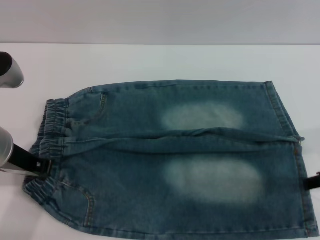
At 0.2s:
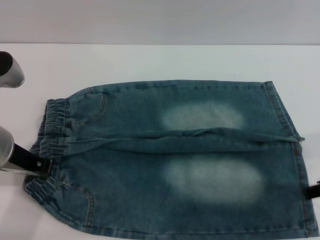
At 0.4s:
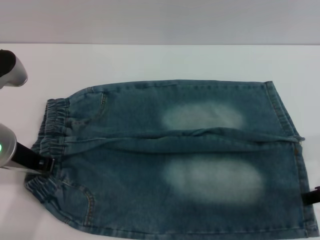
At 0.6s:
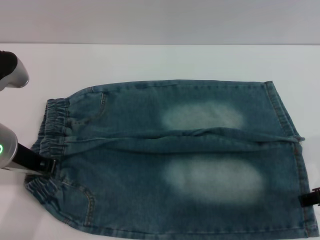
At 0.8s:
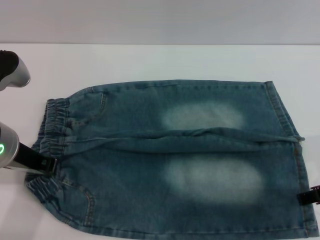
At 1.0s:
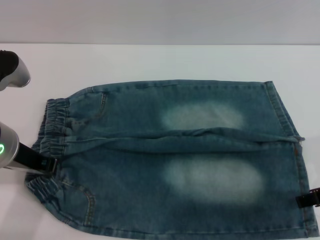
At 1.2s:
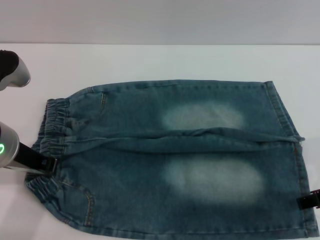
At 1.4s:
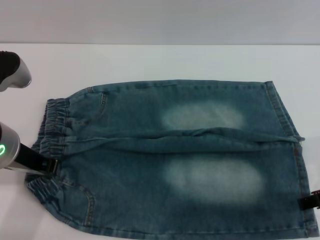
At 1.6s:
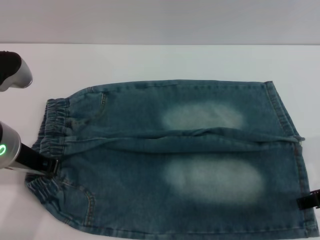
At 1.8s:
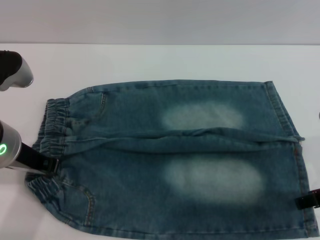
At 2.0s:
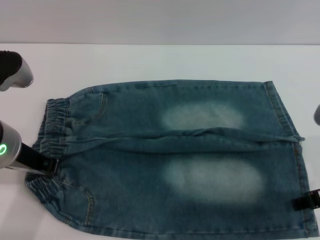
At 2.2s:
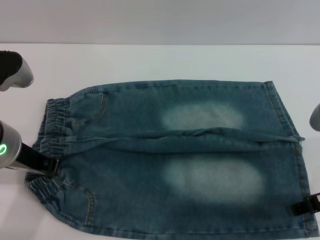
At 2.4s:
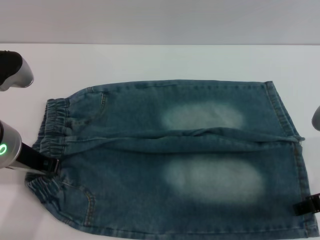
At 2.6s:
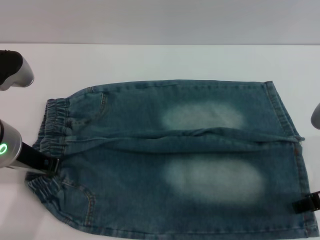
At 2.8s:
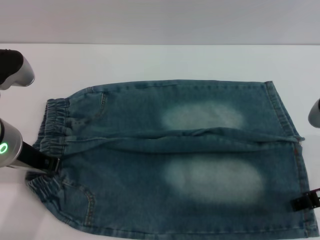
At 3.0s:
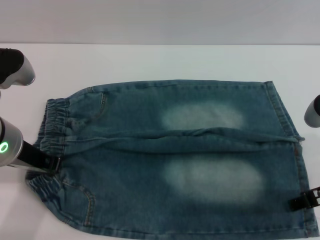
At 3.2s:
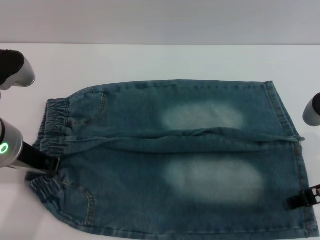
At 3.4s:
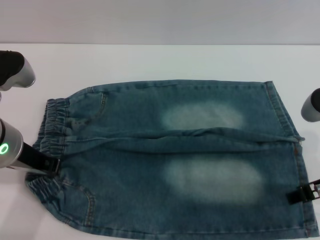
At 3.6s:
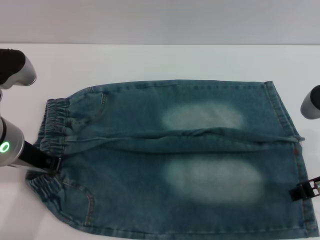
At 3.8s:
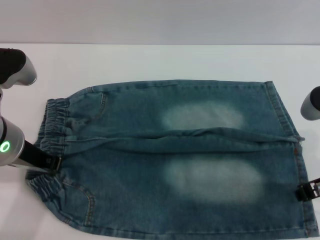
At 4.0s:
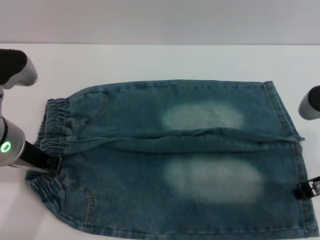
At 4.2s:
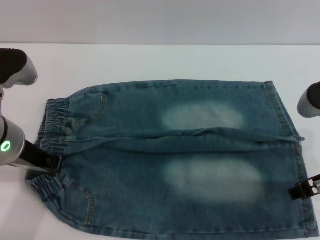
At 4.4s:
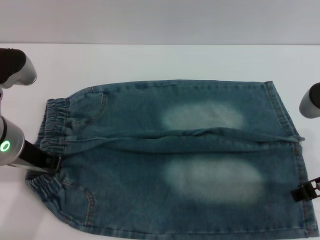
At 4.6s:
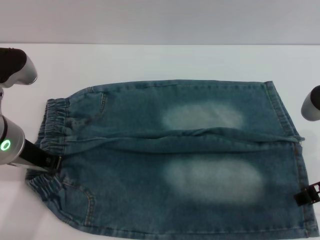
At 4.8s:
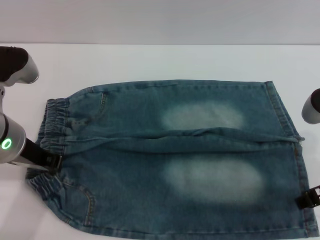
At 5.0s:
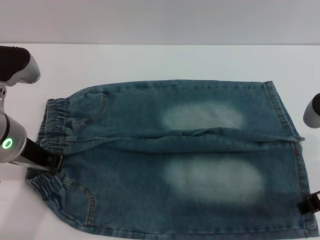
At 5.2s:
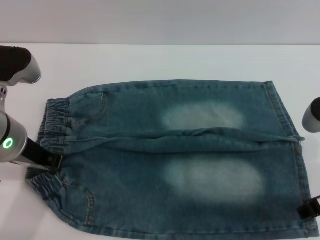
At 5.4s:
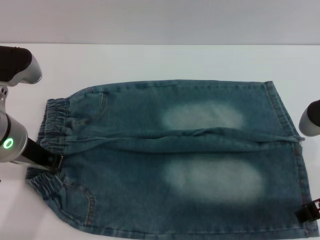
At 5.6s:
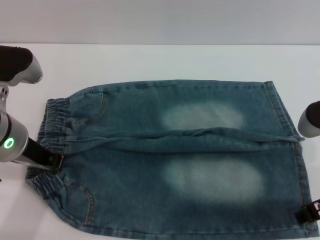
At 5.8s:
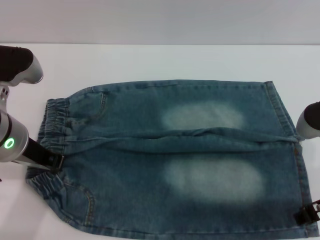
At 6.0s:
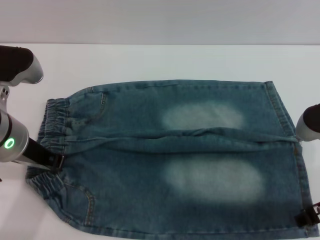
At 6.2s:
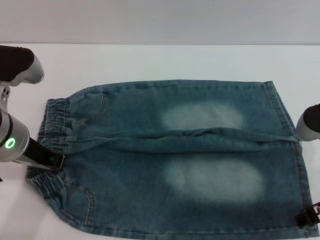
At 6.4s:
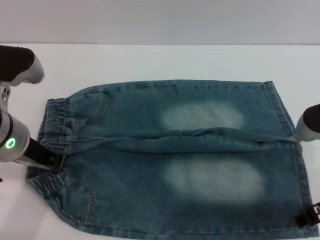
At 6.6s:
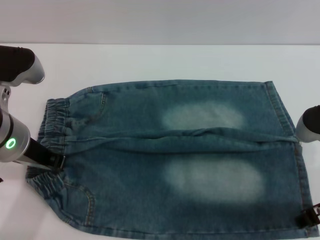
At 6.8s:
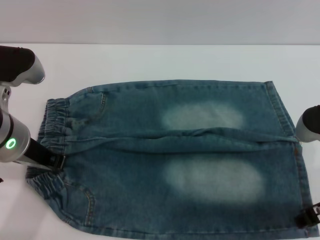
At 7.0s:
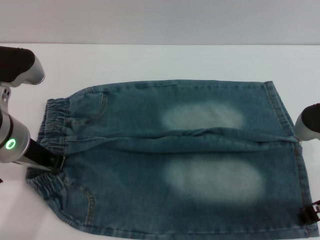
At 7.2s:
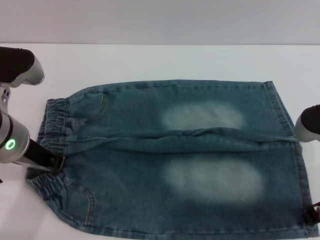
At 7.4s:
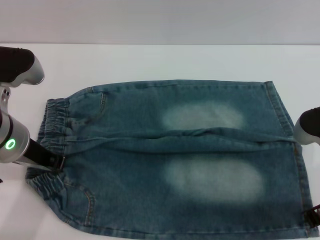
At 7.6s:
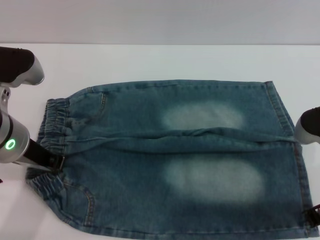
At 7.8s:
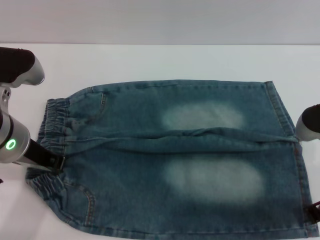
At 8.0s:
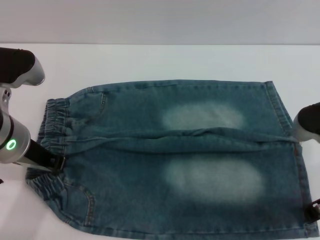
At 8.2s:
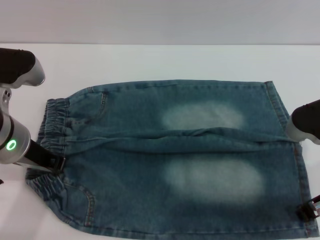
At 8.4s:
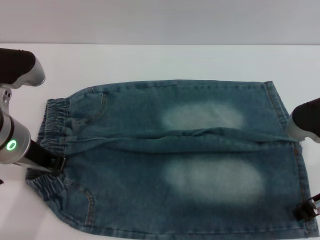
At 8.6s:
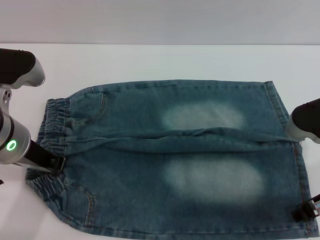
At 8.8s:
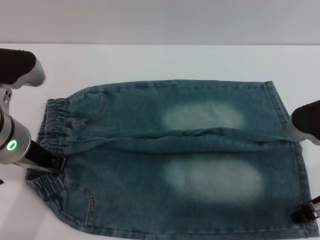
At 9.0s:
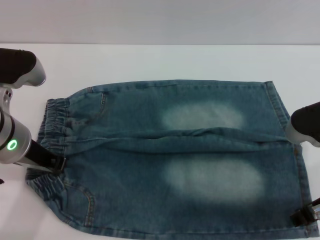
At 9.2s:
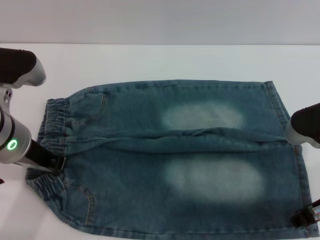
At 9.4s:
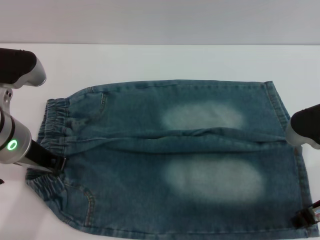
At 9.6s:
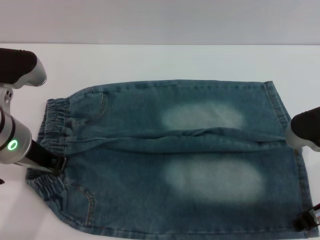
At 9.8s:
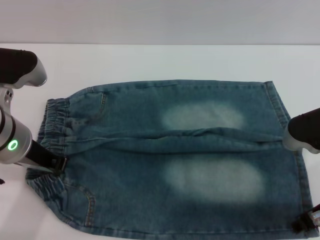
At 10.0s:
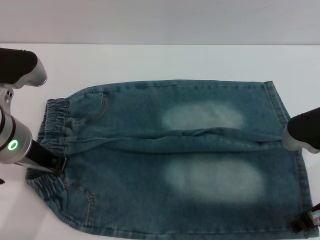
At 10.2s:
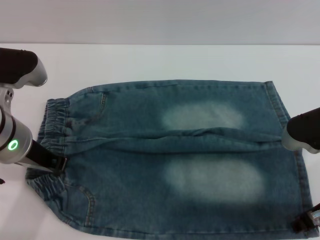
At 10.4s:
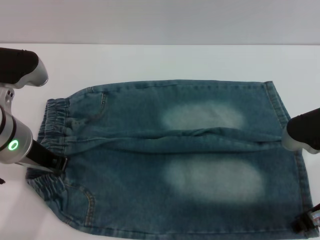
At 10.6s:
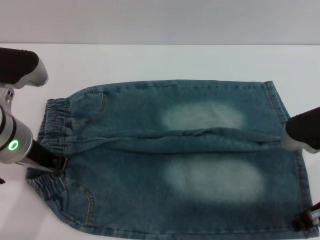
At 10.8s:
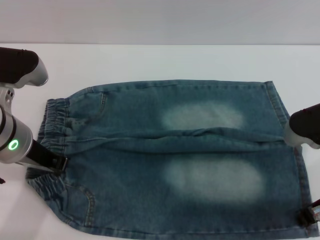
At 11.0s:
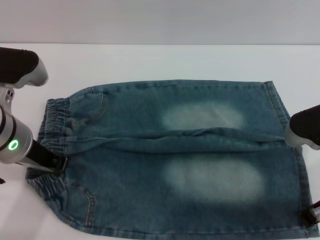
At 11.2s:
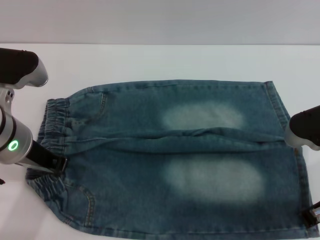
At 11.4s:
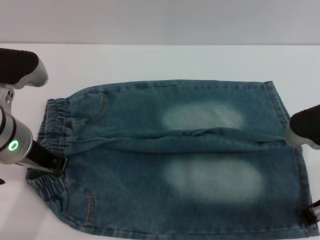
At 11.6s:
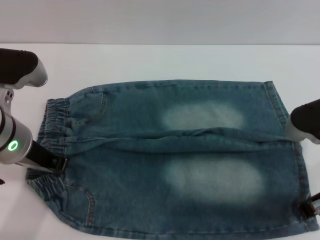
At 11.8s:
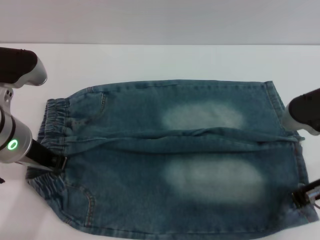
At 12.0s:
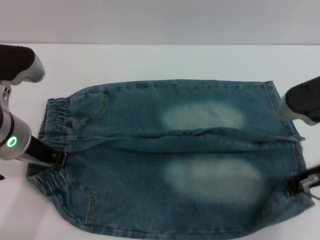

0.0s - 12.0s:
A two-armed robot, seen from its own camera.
0.0s - 6.0s: The grippers make only small movements.
7.6s - 9.0s: The right gripper opens its fingers.
9.0s - 10.4s: The two grippers keep their place.
10.4s - 12.0s: The right gripper closes.

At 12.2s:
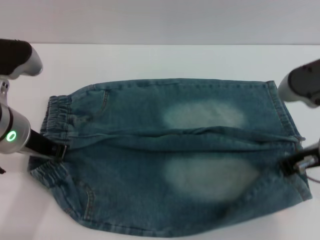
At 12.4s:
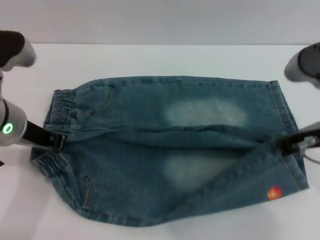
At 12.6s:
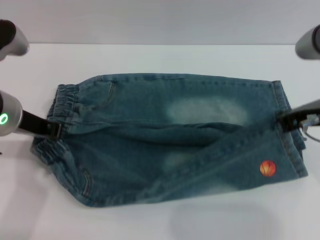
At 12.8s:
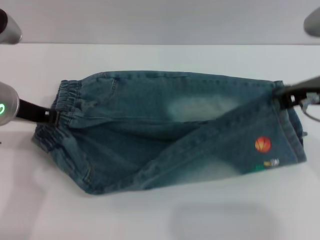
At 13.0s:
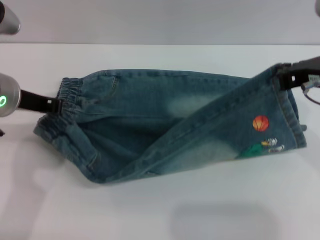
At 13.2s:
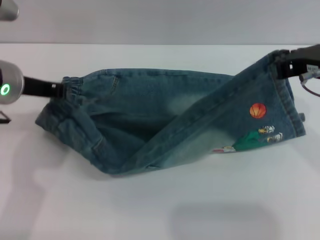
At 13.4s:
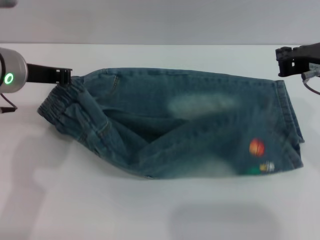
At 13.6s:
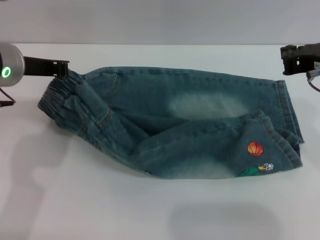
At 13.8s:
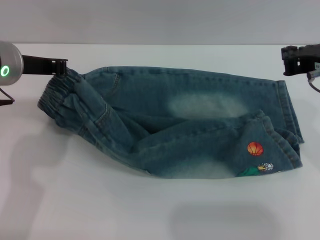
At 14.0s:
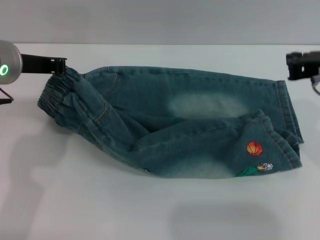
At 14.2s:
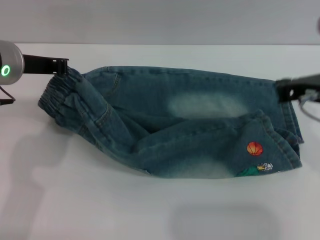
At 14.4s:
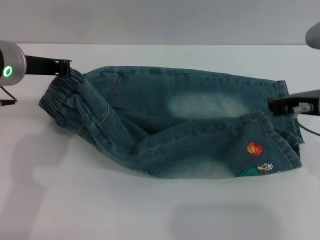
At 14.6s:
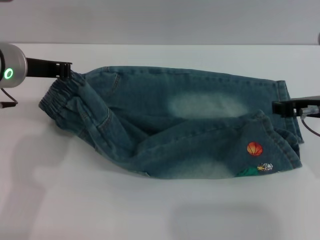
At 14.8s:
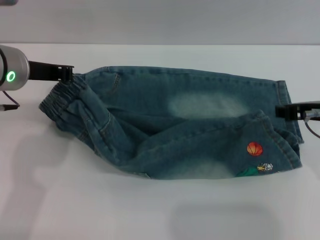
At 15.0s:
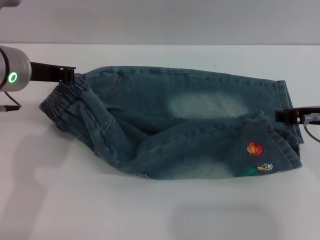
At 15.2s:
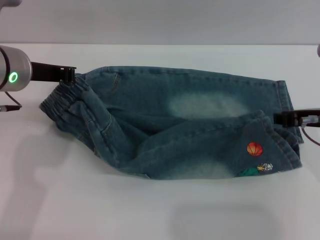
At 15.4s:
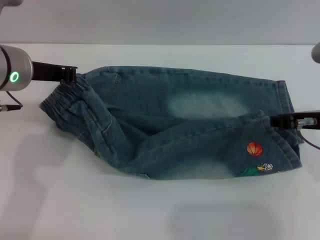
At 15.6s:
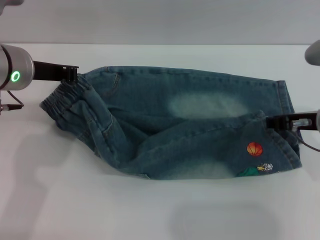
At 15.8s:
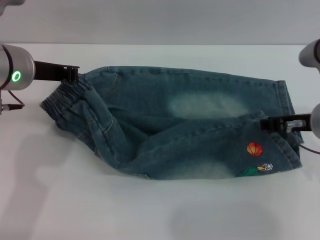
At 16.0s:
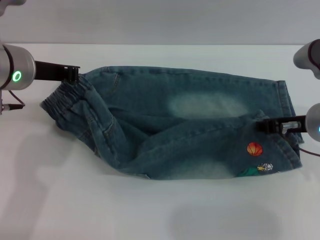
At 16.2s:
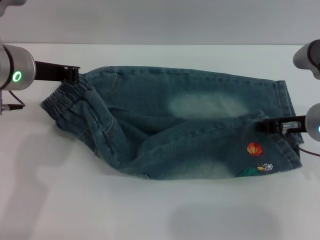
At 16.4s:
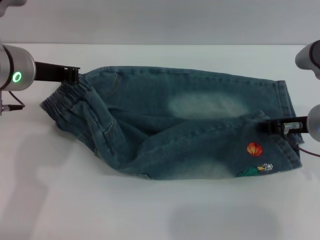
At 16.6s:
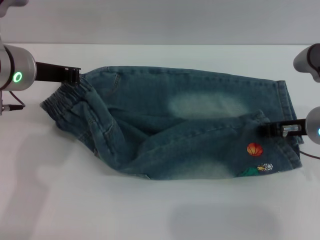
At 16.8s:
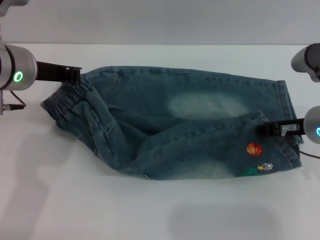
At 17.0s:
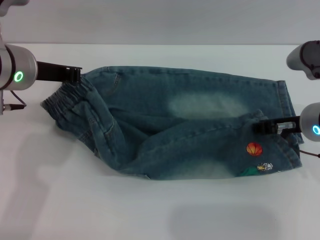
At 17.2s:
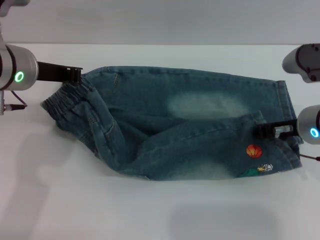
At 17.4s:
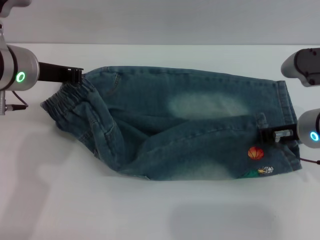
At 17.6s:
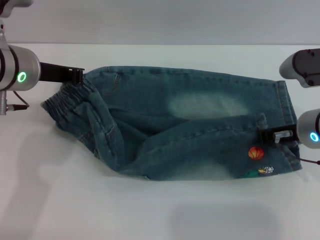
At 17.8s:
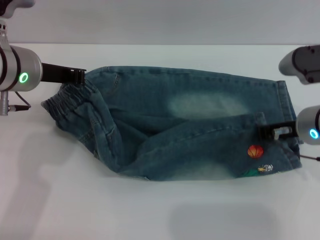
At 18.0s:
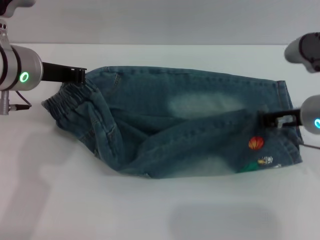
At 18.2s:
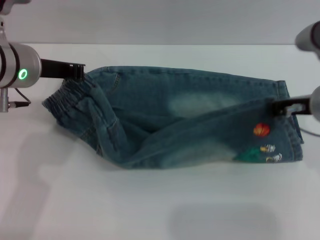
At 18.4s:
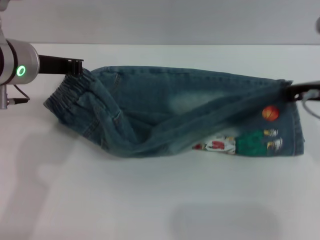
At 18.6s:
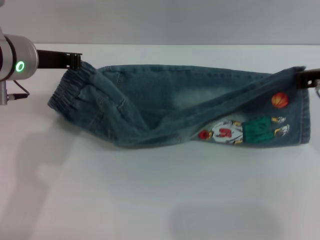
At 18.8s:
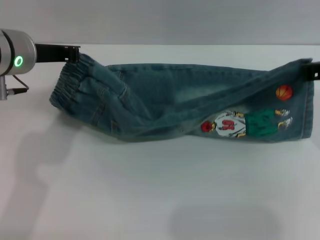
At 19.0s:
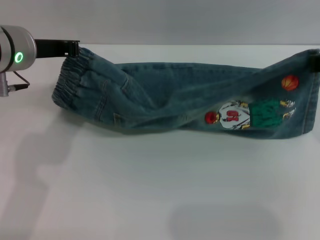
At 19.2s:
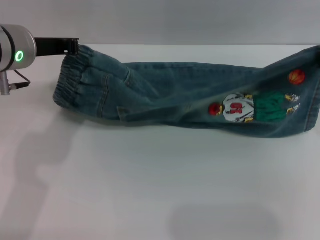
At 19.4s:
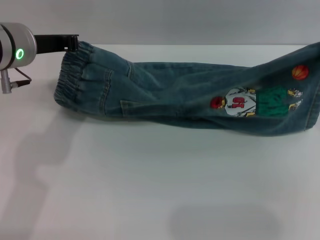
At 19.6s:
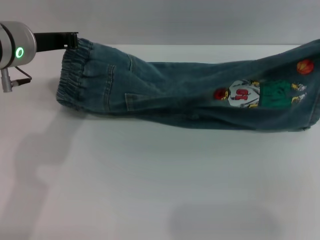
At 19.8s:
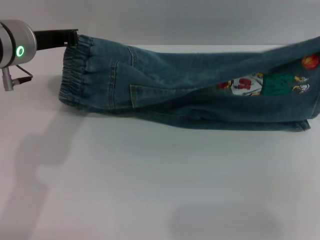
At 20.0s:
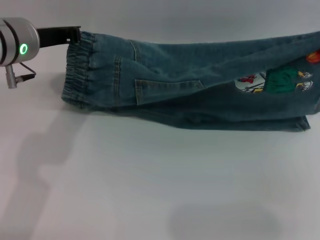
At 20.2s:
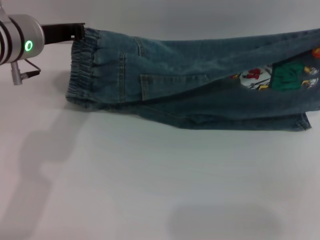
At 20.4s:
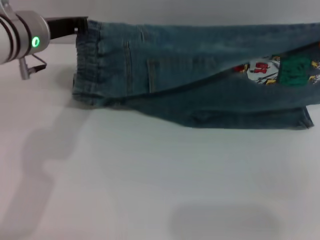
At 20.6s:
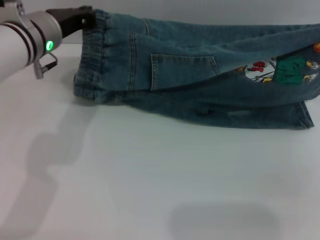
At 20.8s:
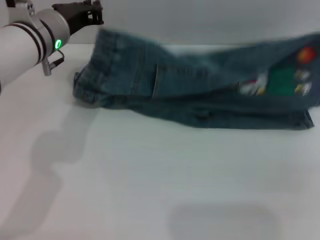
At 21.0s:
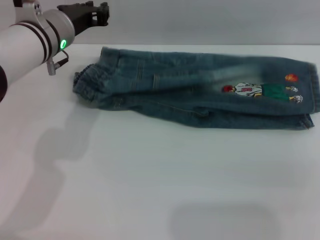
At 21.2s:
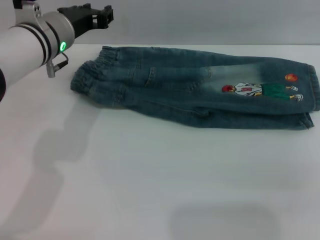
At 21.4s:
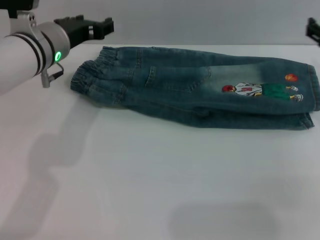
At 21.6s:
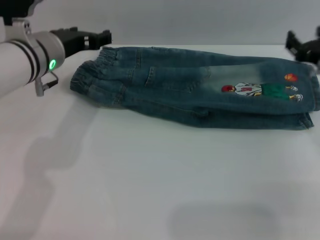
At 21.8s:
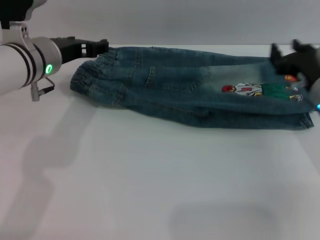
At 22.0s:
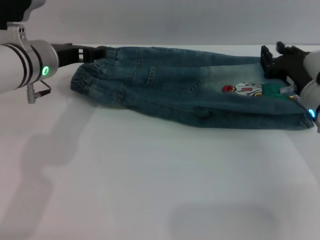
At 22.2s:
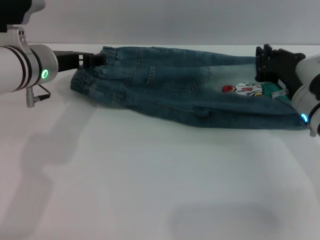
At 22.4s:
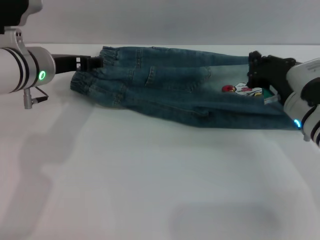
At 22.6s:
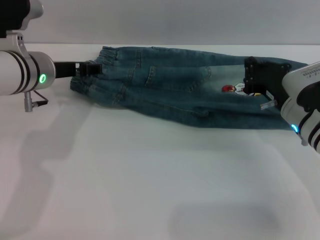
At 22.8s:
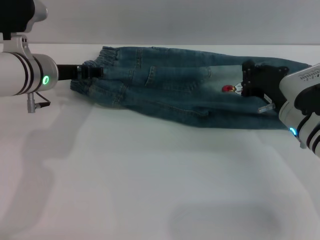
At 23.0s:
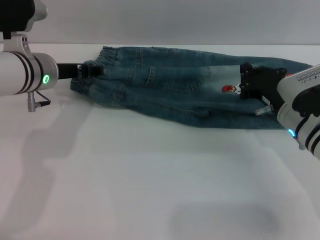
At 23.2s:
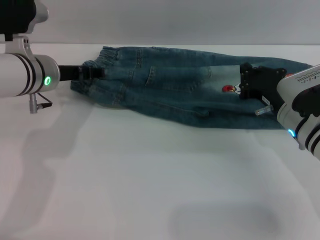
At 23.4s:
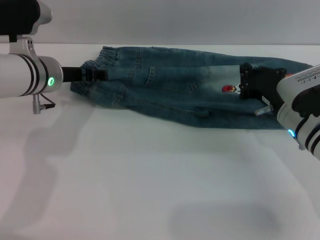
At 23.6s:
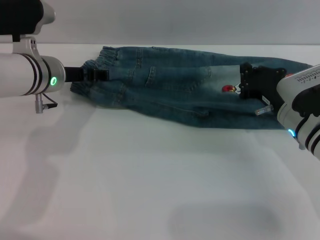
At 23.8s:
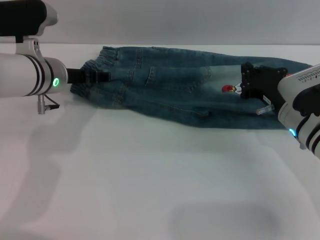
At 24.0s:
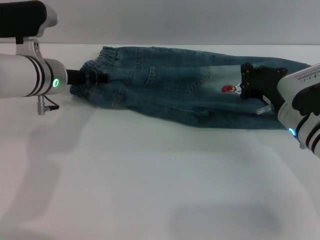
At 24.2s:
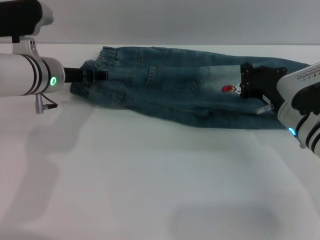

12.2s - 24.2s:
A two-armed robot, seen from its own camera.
Step, 12.2s - 21.8s: Fold the bottom of the pants upward with both grippers.
12.2s - 13.8s: The left gripper shifts by roughly 5 cm; the right gripper is displaced upward by about 5 cm.
13.8s - 15.2s: The right gripper is displaced downward by some 5 cm, and opens up.
15.2s - 16.6s: The grippers stay close to where they were, moving slightly.
16.6s - 18.2s: The right gripper closes its fingers.
18.2s - 19.8s: The right gripper heads upward and to the right, covering about 10 cm.
19.8s - 21.2s: The right gripper goes some 5 cm downward, and opens up. Meanwhile the left gripper shifts by approximately 5 cm, and opens its fingers.
21.2s - 22.6s: The left gripper opens, while the right gripper shifts some 15 cm downward and to the left, and closes up.
22.6s - 24.2s: The grippers make only small movements.
